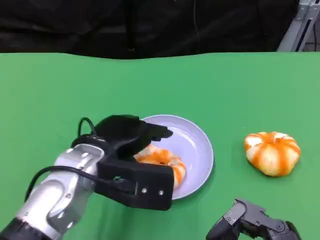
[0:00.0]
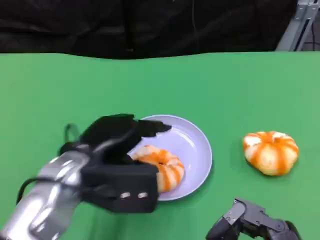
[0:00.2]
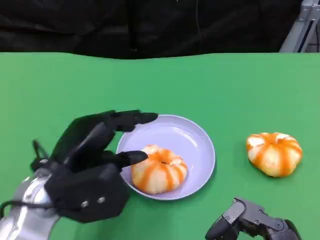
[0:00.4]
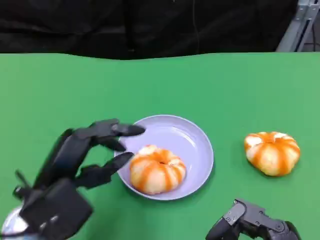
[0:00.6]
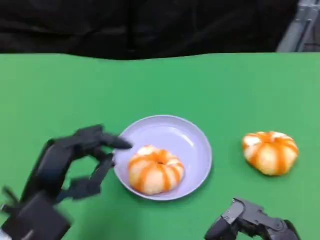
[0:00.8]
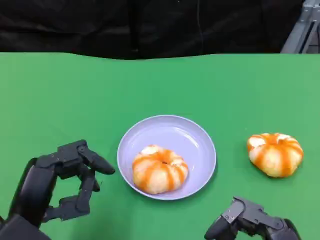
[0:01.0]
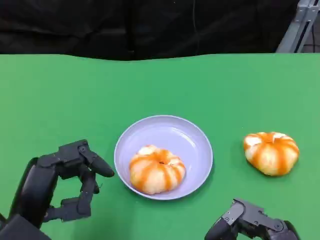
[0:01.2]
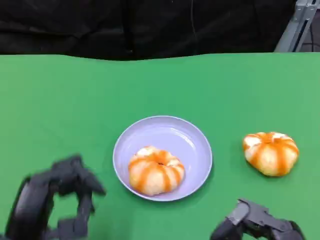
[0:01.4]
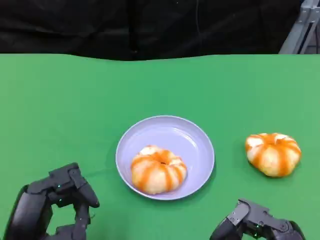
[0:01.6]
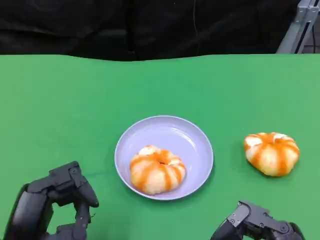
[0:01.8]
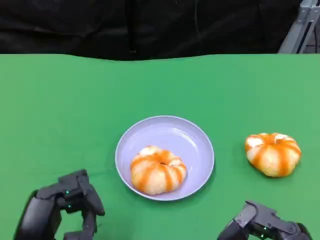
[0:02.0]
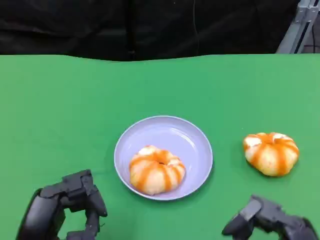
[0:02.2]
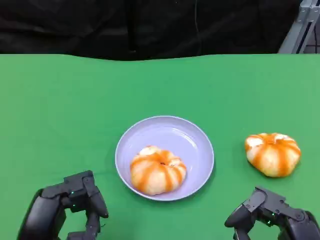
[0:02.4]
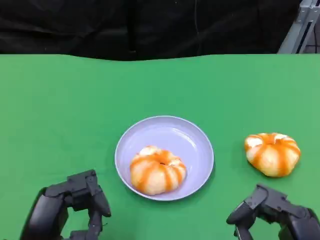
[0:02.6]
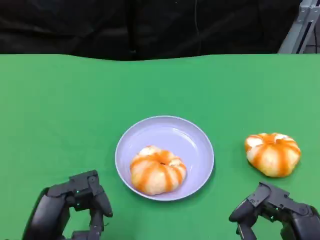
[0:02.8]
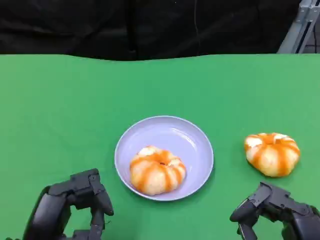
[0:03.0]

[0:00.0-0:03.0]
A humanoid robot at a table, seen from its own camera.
Task of the whole recording: Grasp the bread from the table and place it into the plate.
0.0 to 1.6 s: The left hand goes some 15 cm backward and to the left.
1.6 to 3.0 s: The hands stay close to where they were, moving slightly.

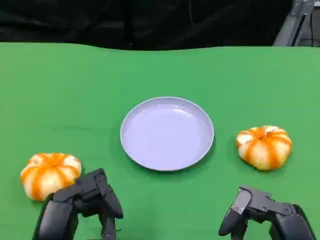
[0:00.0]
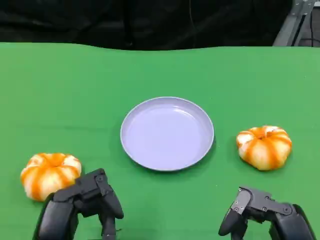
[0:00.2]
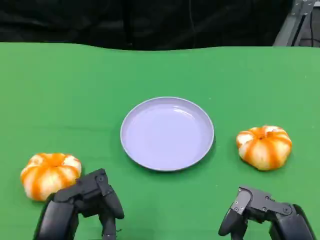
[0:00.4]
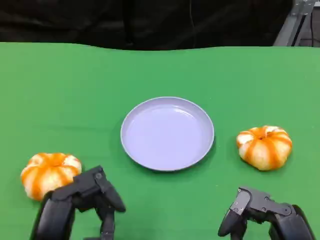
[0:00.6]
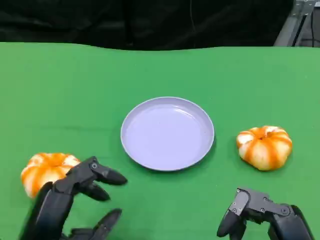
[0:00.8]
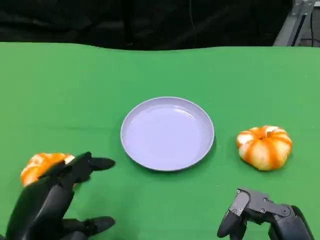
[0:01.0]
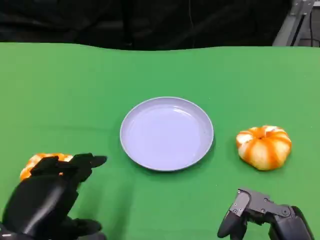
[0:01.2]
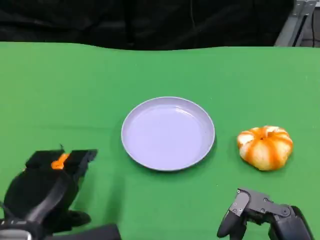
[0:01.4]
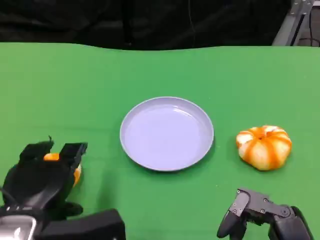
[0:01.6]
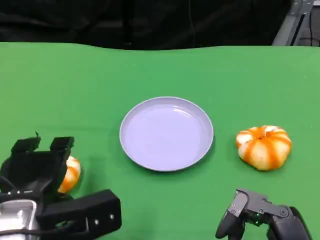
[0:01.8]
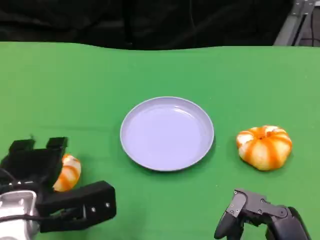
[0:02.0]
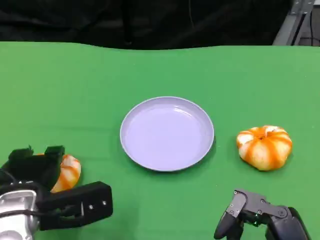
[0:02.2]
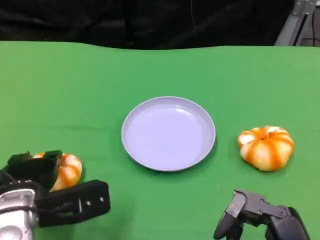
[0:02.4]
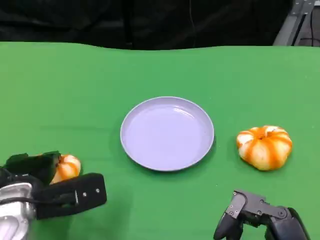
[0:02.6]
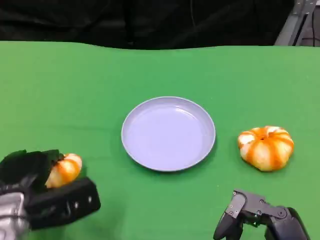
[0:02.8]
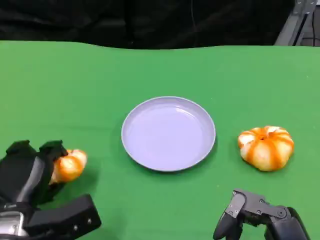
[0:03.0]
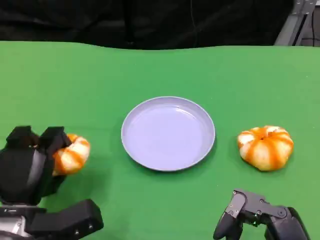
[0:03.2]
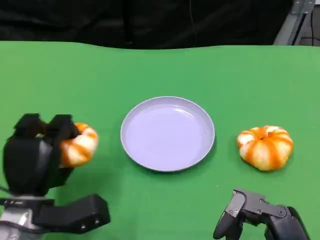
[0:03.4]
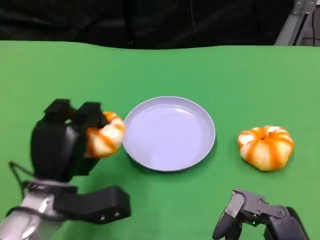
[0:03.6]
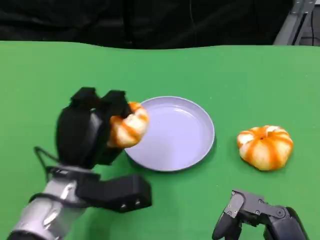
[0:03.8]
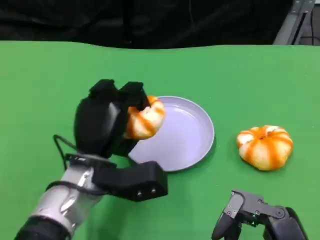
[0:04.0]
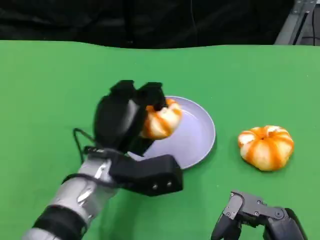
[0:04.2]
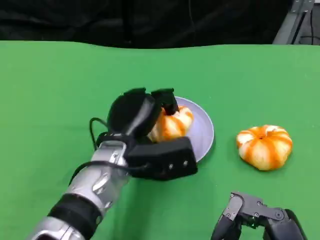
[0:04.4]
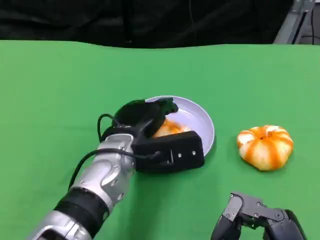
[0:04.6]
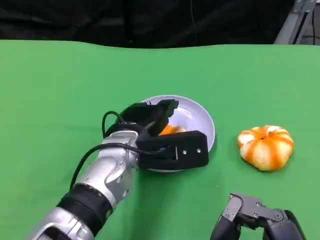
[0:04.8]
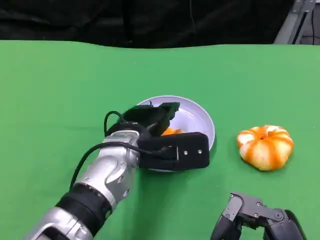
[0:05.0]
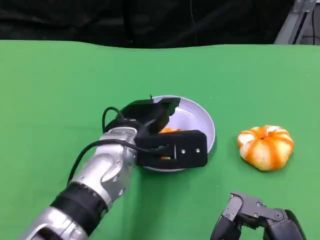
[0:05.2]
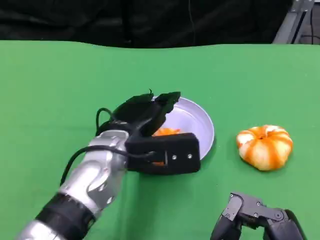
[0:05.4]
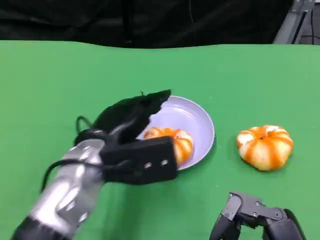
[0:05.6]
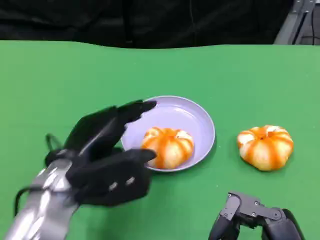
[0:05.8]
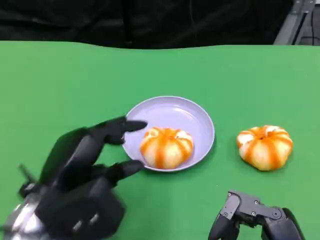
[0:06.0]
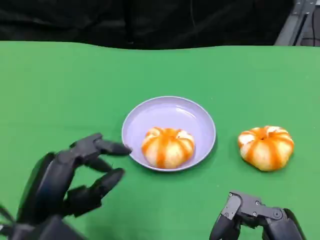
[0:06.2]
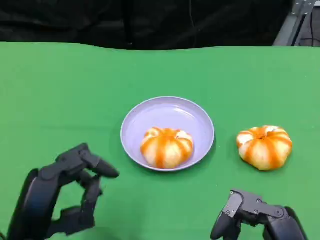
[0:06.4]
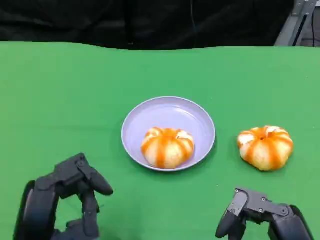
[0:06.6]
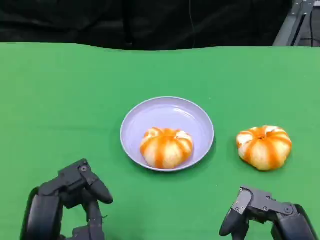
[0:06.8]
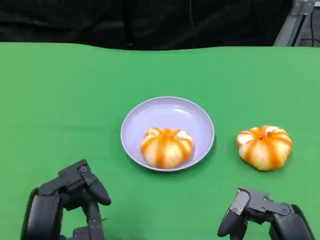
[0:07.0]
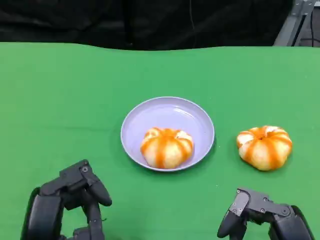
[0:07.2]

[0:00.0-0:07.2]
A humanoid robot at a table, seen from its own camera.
Task of the whole recording: Grasp the bread from the table and place it into the plate.
0.0 to 1.4 s: The left hand moves some 5 cm.
1.4 to 2.8 s: The left hand moves downward and forward, some 10 cm.
2.8 to 4.4 s: The left hand goes some 15 cm to the right and forward.
4.4 to 5.8 s: The left hand goes some 10 cm to the left and backward.
5.8 to 7.2 s: The left hand goes approximately 10 cm backward.

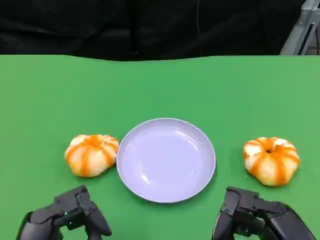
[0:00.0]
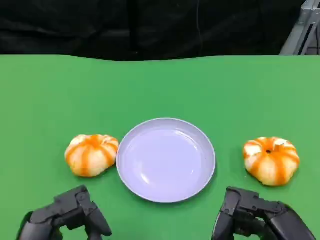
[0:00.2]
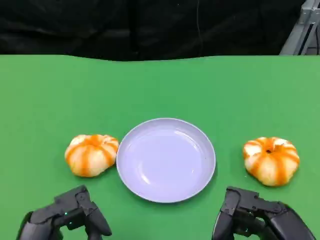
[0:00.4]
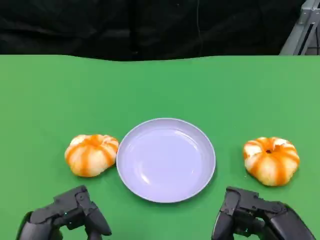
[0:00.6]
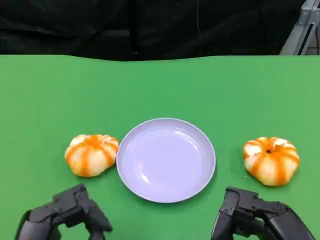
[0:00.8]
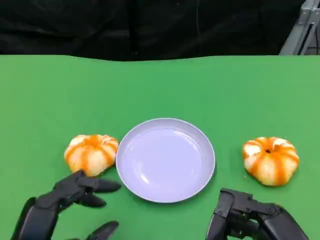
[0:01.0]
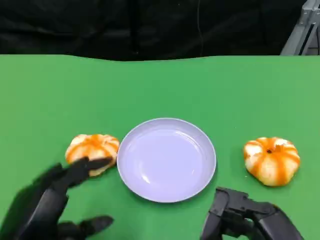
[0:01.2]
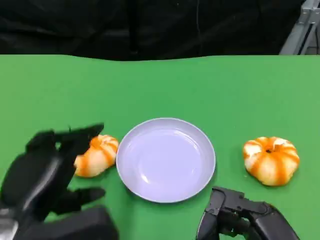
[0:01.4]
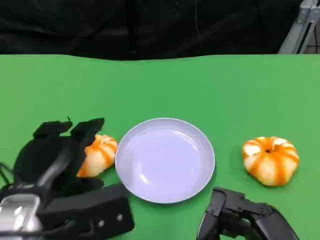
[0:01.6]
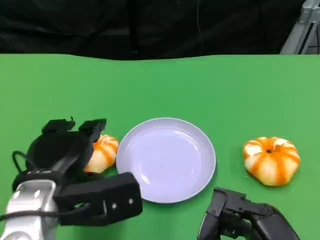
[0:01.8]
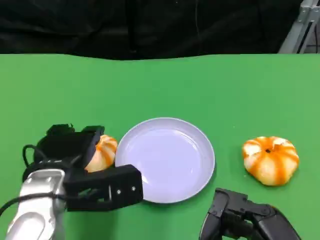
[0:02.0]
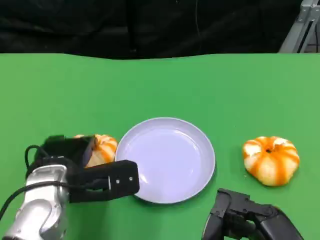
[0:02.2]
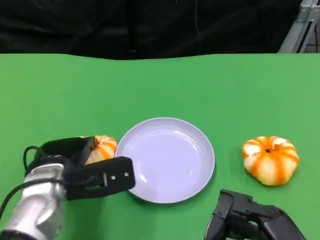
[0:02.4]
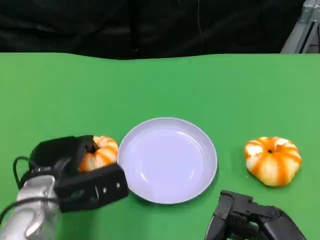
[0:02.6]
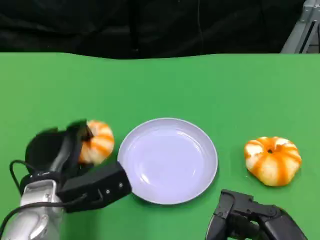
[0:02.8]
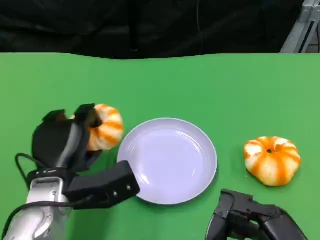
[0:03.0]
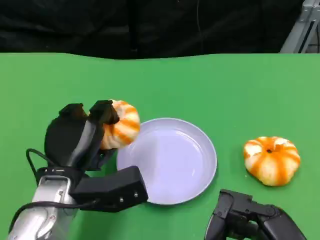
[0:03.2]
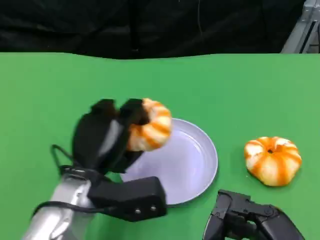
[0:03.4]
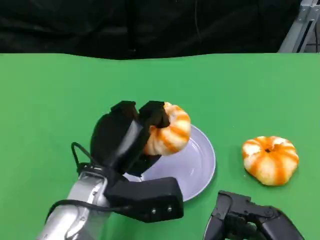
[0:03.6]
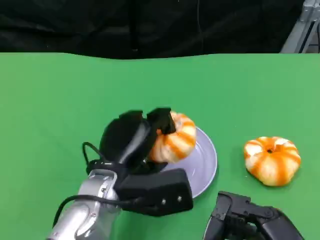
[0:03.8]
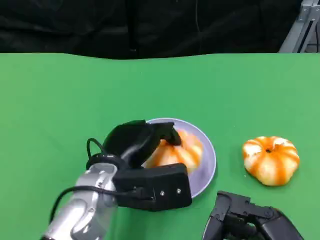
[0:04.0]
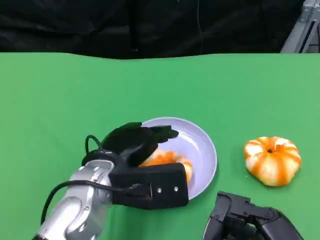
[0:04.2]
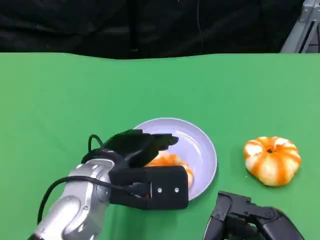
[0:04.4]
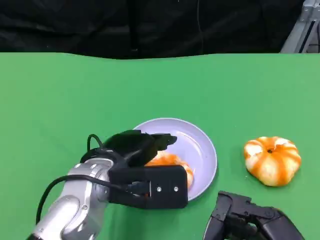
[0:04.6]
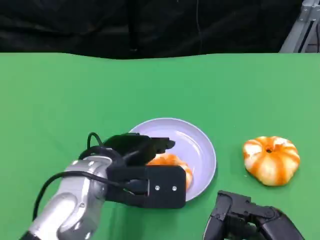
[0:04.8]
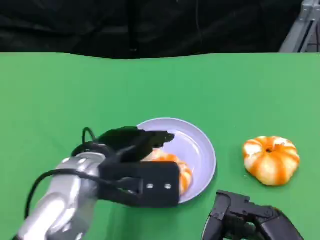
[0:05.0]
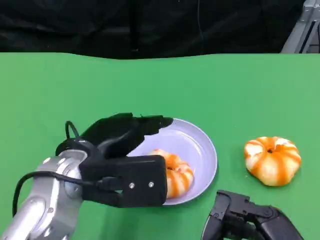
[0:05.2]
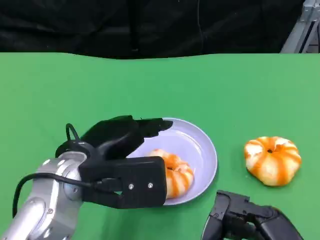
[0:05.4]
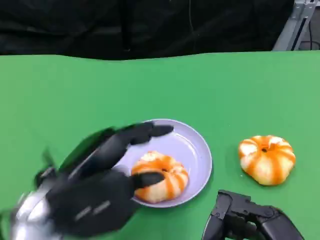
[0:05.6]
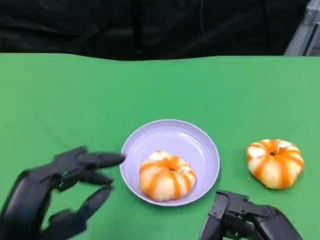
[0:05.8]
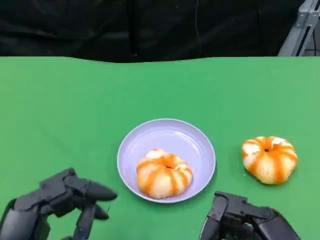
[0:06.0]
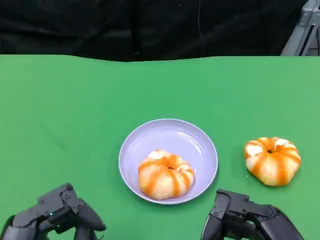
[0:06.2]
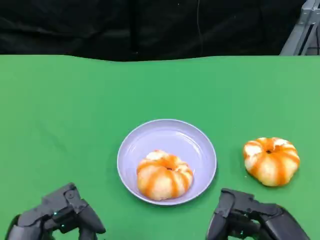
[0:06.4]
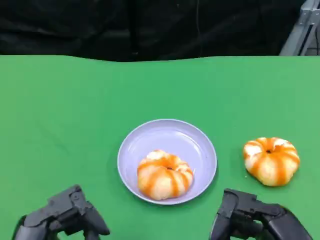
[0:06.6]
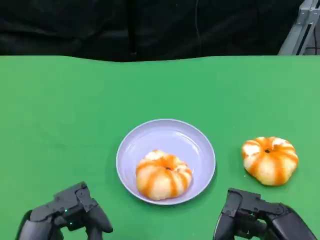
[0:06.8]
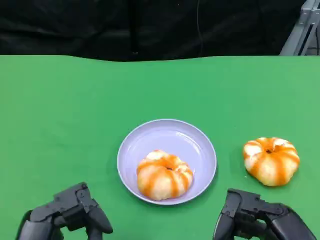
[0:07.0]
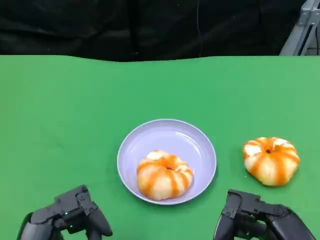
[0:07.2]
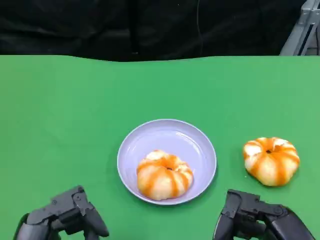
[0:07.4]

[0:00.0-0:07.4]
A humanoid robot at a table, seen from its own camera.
Task of the whole recording: Grasp the bread from the table and place it into the plate.
0.0 to 1.4 s: The left hand goes some 5 cm forward.
1.4 to 3.0 s: The left hand goes approximately 10 cm forward and downward.
3.0 to 4.4 s: The left hand heads to the right and upward, covering about 10 cm.
4.4 to 6.0 s: The left hand shifts approximately 20 cm backward and to the left.
6.0 to 7.4 s: The hands make only small movements.

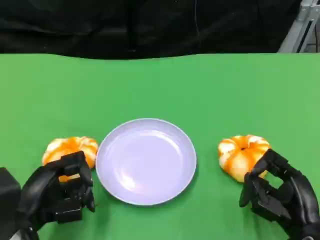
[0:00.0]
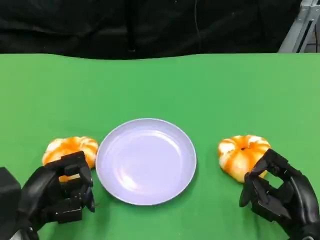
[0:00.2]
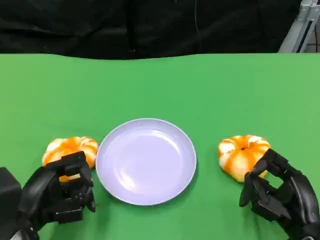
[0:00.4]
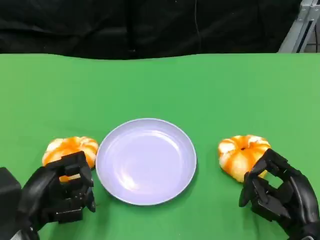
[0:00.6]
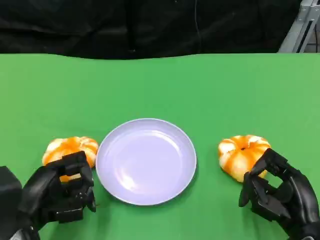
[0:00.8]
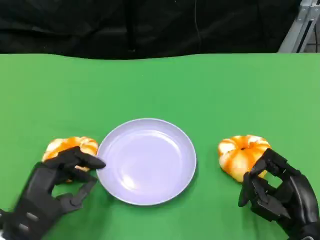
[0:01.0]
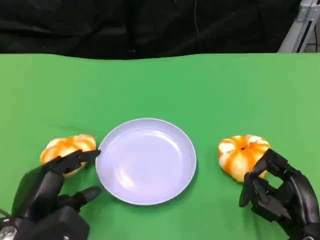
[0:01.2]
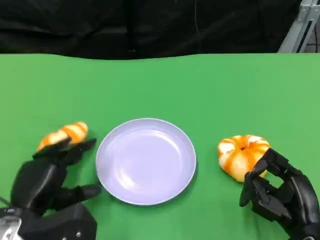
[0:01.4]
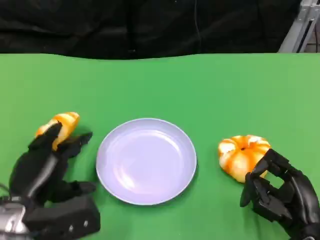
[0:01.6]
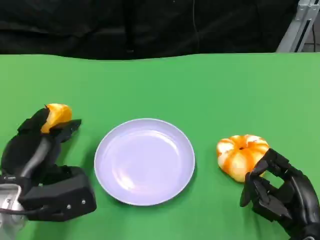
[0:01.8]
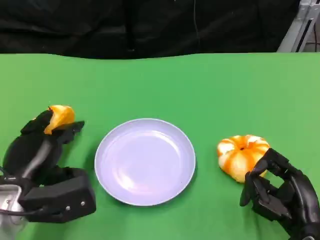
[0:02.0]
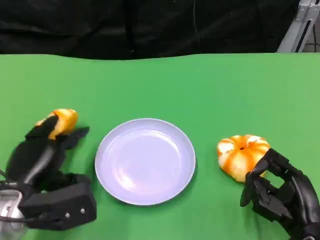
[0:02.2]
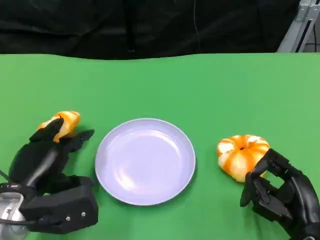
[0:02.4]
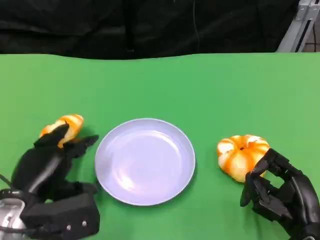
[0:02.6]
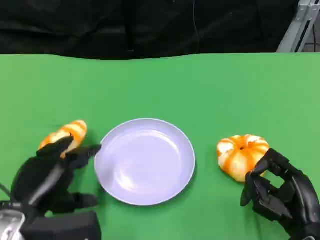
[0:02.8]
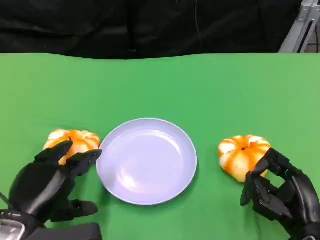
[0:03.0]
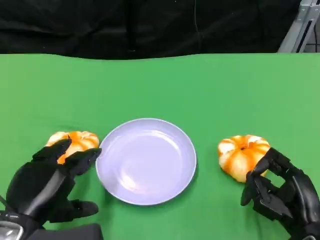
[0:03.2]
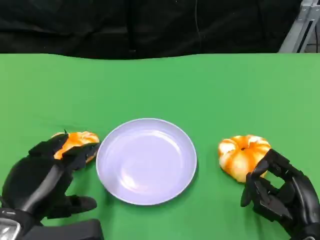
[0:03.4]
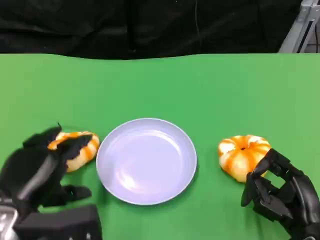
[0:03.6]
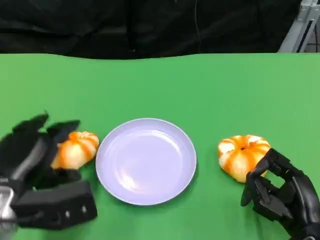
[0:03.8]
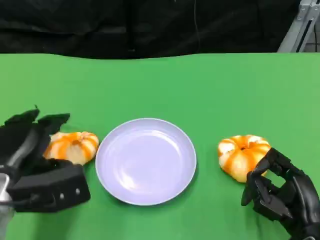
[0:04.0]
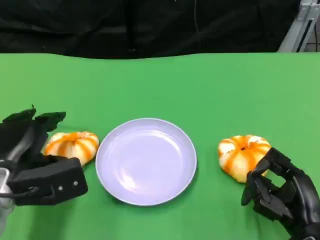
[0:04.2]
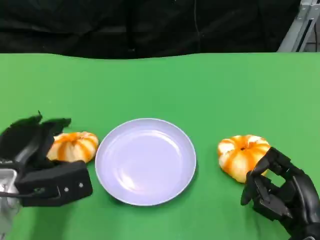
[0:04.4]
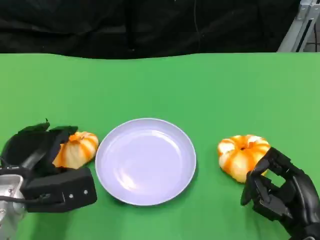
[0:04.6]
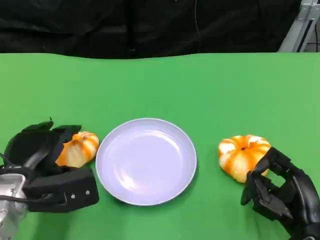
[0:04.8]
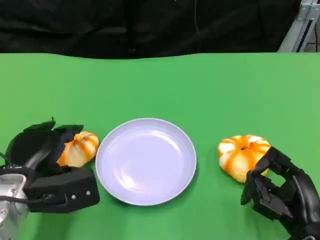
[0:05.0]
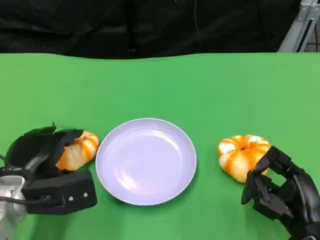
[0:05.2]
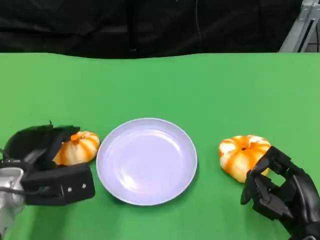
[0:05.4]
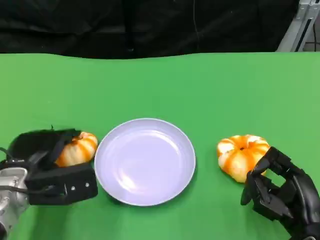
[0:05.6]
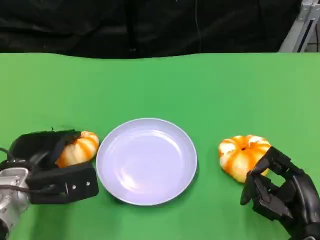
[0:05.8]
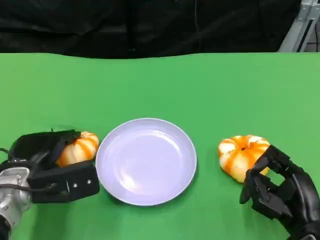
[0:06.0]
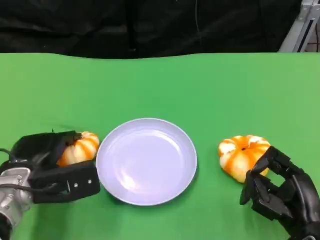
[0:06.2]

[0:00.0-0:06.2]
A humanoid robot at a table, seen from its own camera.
Task of the whole recording: Grasp the bread from the table and place it into the plate.
1.6 to 3.2 s: The left hand moves approximately 5 cm.
3.2 to 4.6 s: The left hand goes some 10 cm forward.
4.6 to 6.2 s: The hands stay close to where they were, moving slightly.
